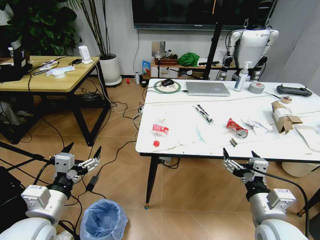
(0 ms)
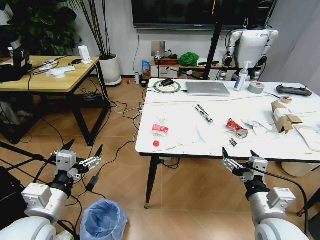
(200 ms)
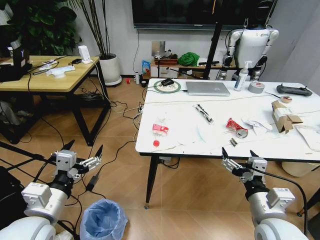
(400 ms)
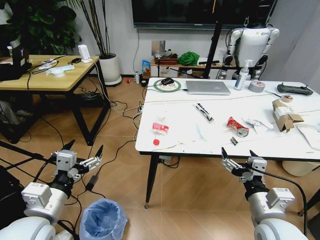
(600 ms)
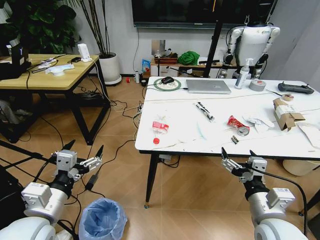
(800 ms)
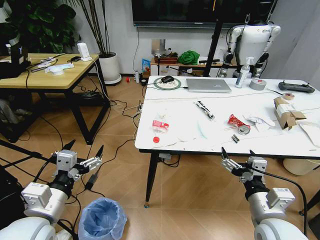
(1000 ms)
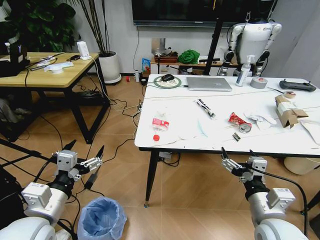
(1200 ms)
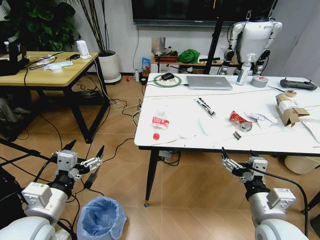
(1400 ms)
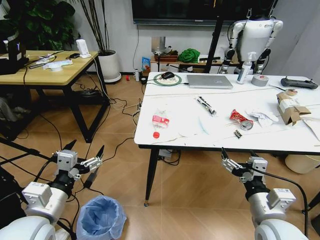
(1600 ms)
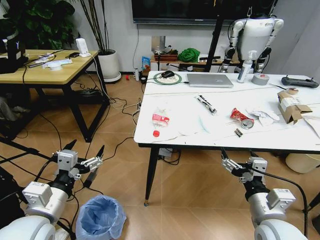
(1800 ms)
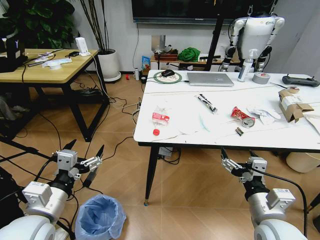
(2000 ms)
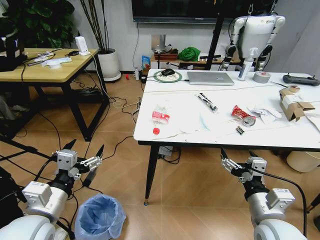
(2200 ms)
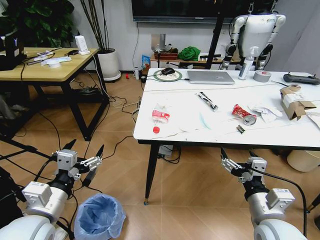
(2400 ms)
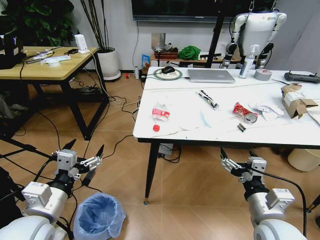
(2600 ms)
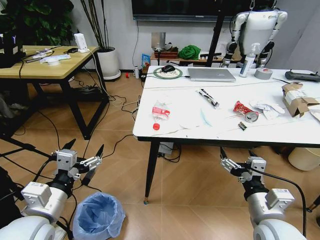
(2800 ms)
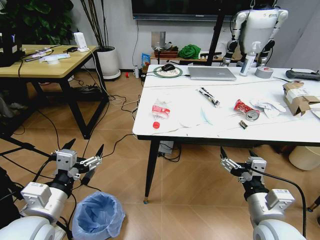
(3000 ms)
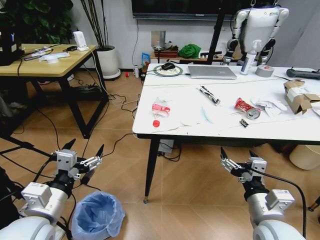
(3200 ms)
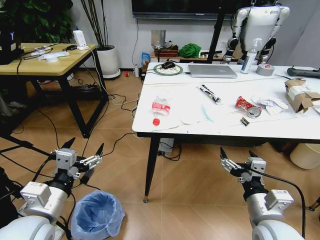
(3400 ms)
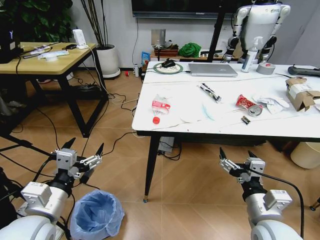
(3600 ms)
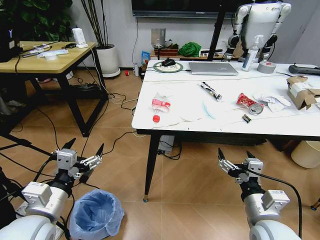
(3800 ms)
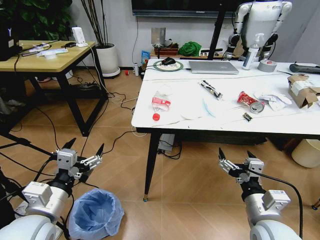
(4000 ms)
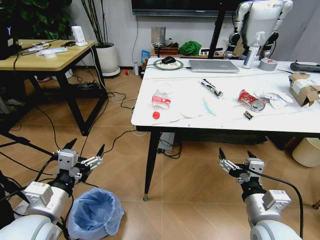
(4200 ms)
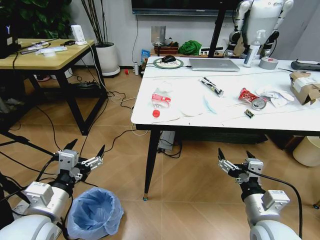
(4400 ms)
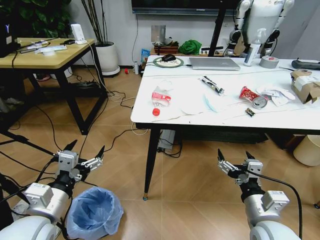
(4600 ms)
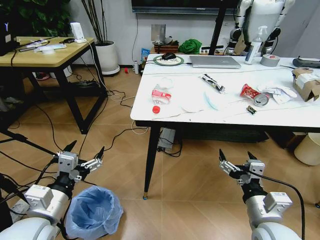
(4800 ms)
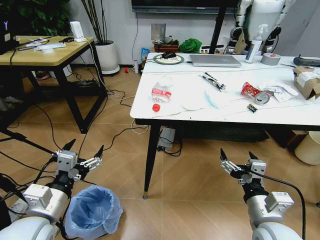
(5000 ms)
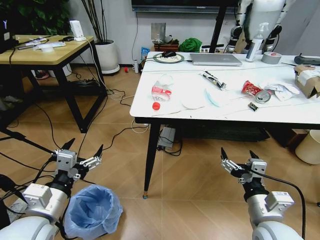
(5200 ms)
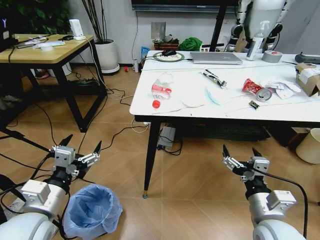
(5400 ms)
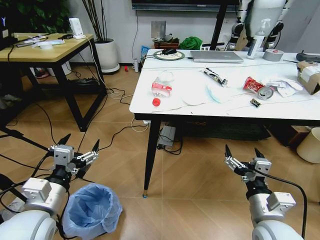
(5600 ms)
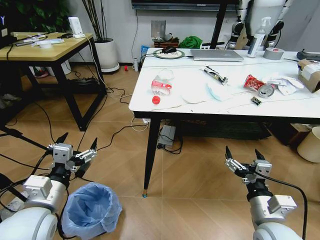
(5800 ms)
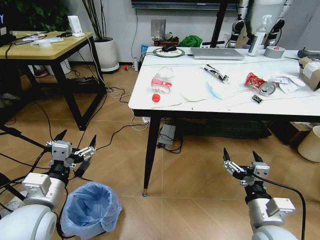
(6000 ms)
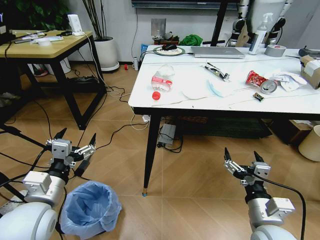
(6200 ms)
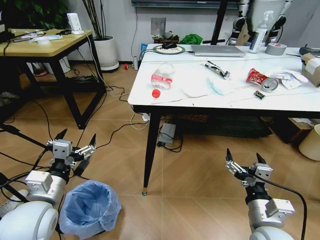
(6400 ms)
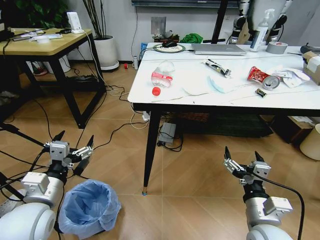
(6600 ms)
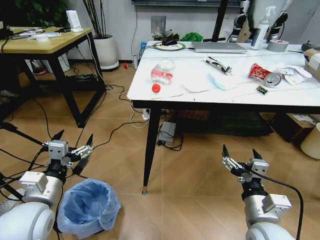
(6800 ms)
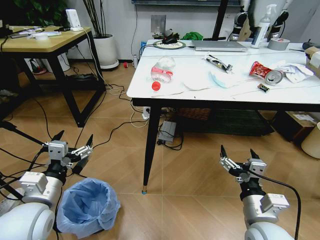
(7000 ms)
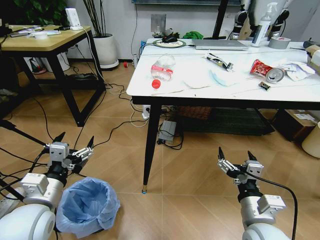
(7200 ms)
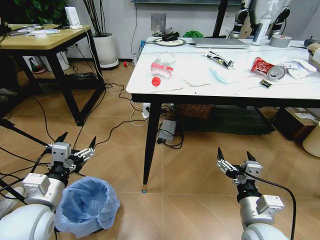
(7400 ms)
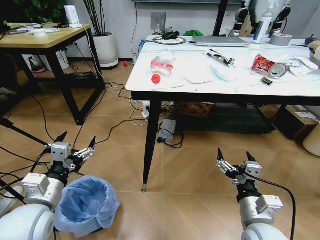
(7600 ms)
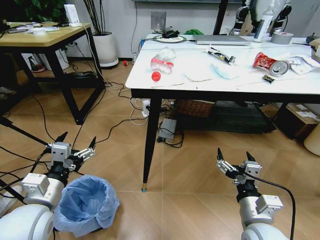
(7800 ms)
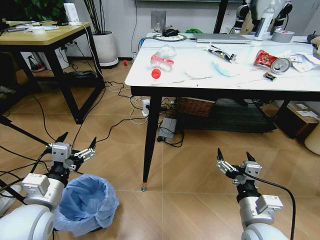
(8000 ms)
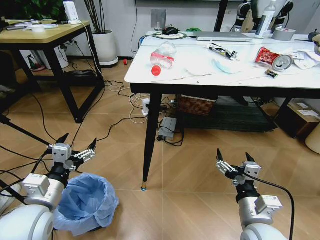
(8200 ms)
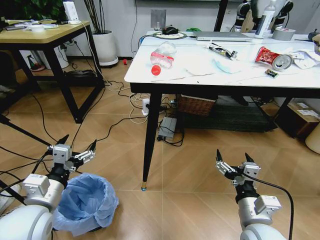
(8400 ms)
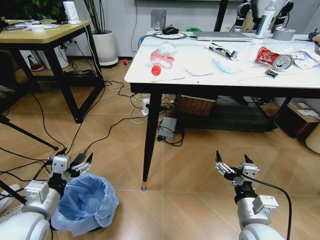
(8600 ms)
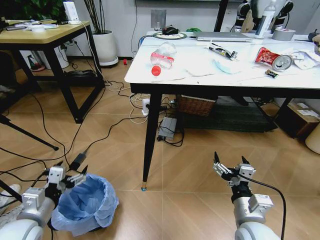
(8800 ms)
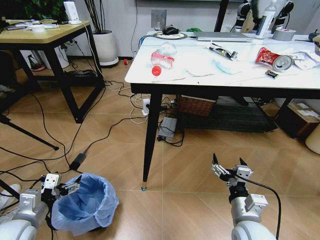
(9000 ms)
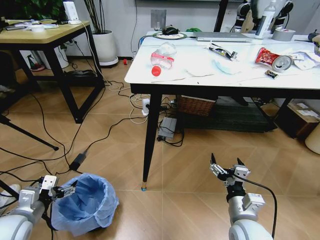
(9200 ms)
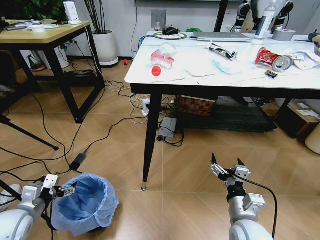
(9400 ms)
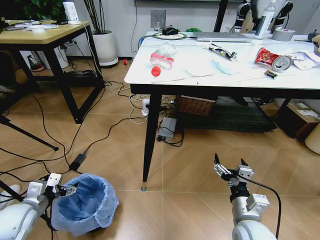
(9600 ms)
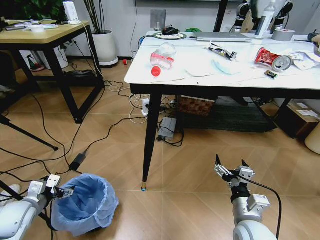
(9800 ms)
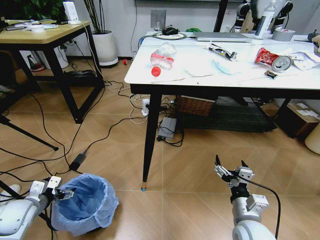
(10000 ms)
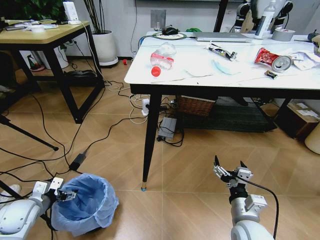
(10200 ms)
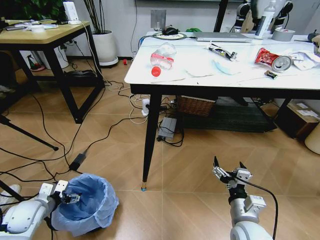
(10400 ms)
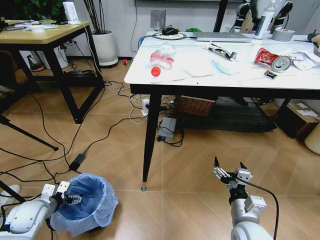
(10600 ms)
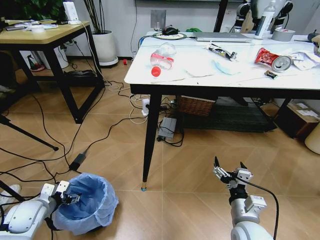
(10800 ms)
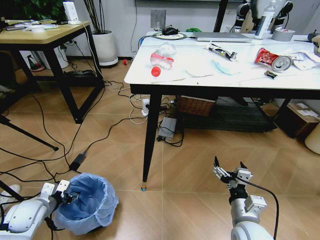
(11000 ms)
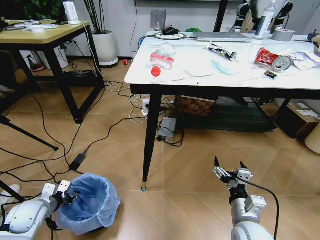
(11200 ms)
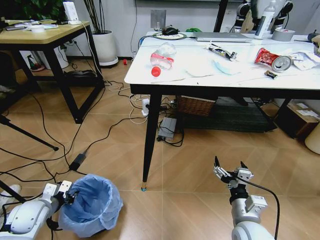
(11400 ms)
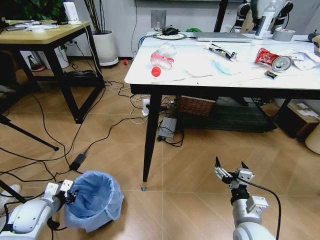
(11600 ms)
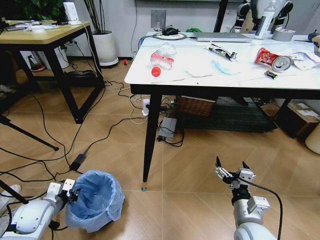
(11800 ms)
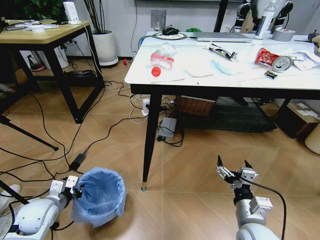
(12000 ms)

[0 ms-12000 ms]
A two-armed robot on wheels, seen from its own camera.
Task of the whole recording: Pick up the trash bin and place the trash from the table into it.
7600 ms to 9000 ms: The left gripper heads to the left and downward, covering roughly 10 cm.
9000 ms to 10400 ms: The left gripper moves downward, forward and to the left, approximately 15 cm.
10400 ms to 12000 ms: The left gripper moves to the right, about 5 cm, and closes.

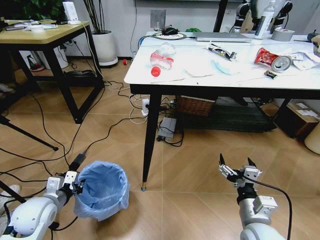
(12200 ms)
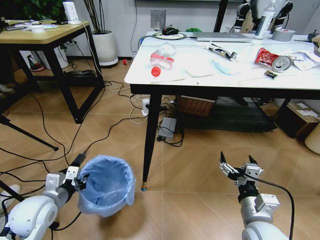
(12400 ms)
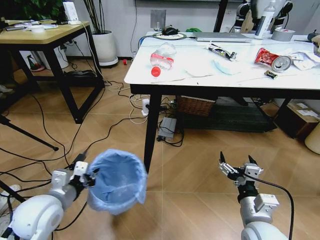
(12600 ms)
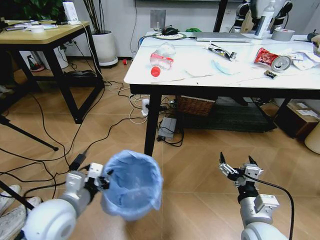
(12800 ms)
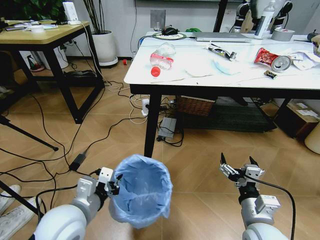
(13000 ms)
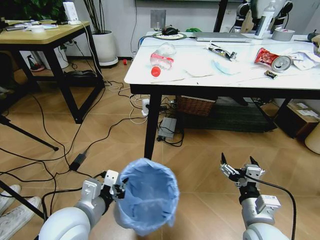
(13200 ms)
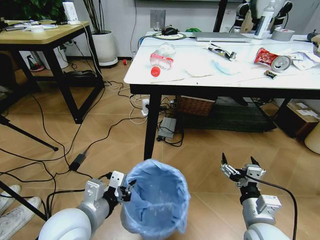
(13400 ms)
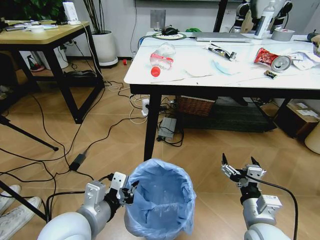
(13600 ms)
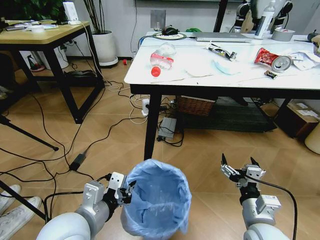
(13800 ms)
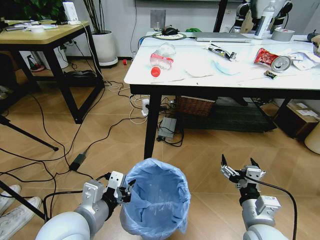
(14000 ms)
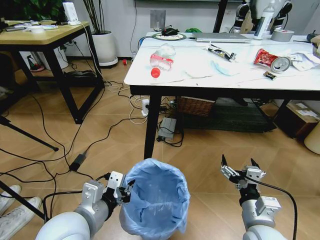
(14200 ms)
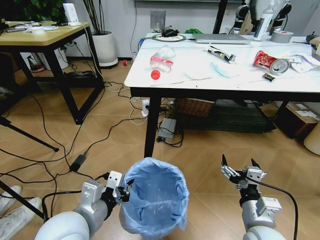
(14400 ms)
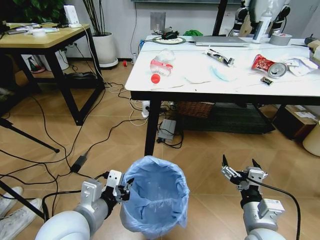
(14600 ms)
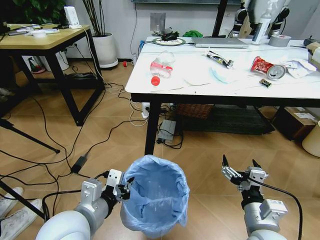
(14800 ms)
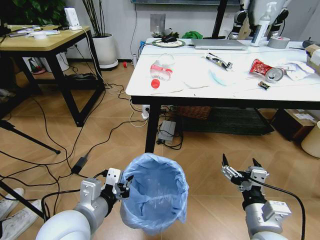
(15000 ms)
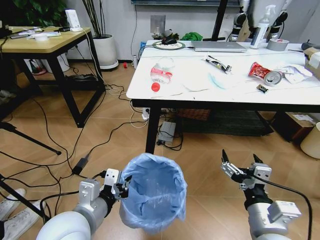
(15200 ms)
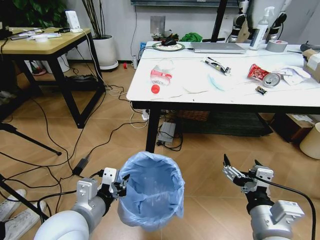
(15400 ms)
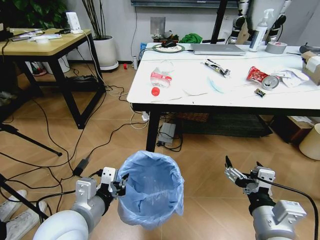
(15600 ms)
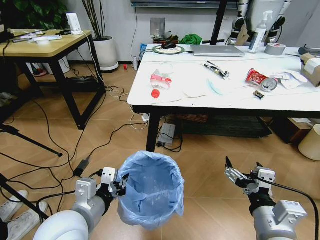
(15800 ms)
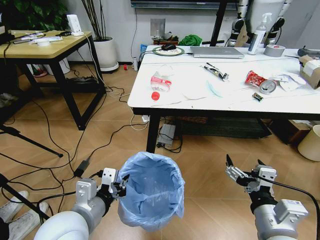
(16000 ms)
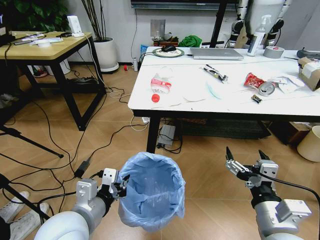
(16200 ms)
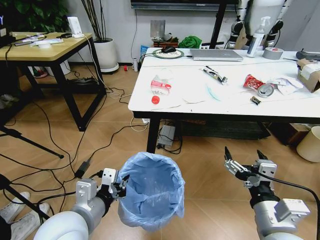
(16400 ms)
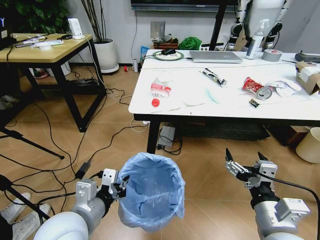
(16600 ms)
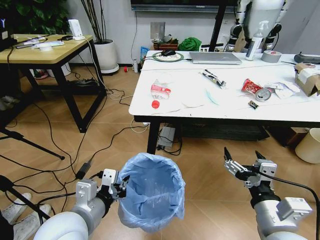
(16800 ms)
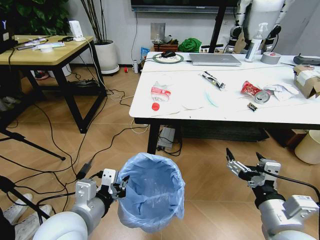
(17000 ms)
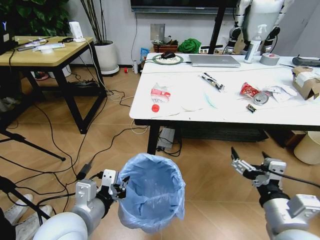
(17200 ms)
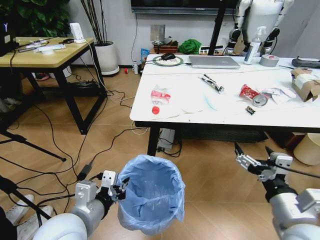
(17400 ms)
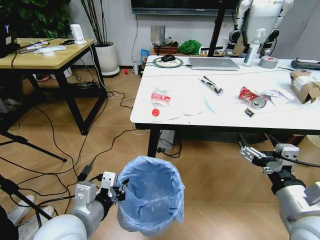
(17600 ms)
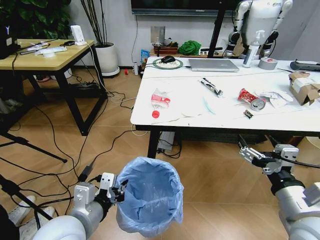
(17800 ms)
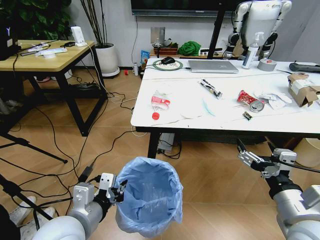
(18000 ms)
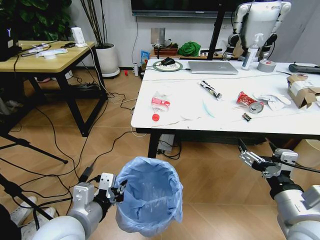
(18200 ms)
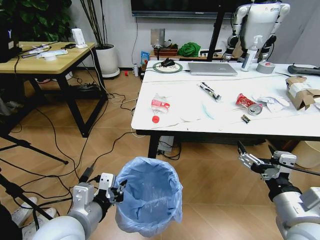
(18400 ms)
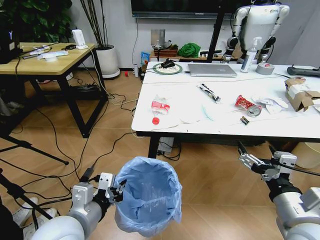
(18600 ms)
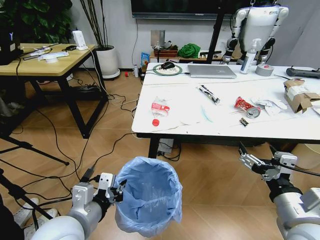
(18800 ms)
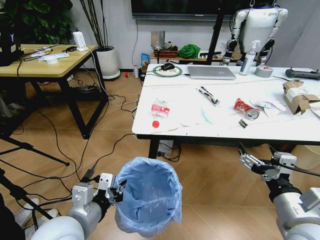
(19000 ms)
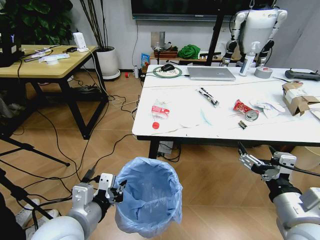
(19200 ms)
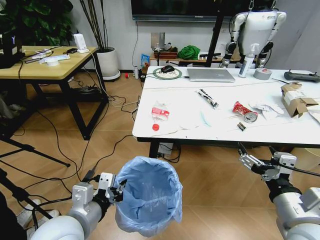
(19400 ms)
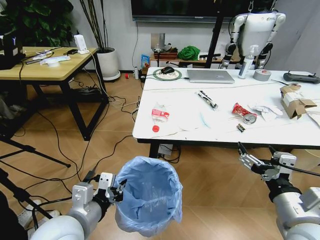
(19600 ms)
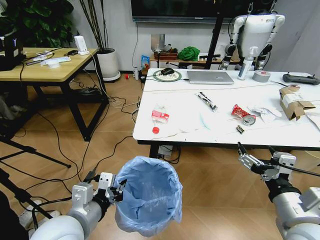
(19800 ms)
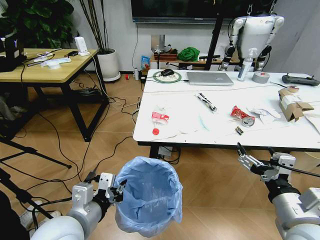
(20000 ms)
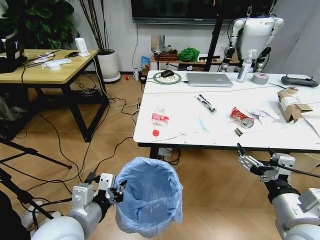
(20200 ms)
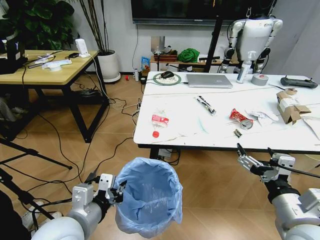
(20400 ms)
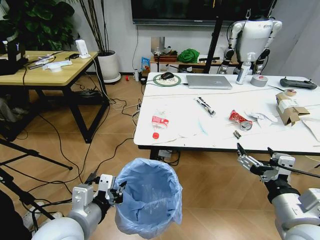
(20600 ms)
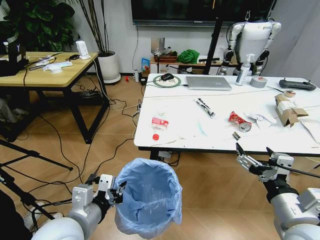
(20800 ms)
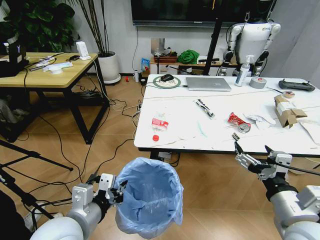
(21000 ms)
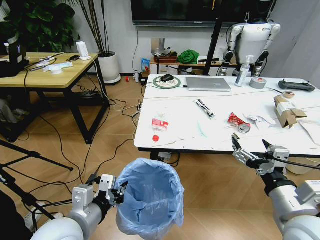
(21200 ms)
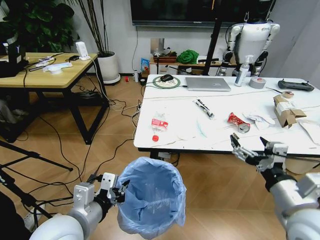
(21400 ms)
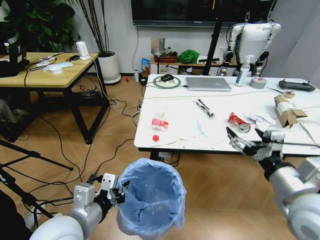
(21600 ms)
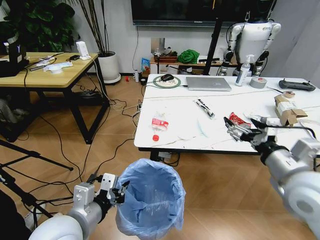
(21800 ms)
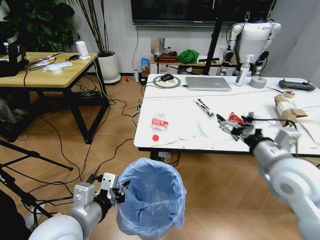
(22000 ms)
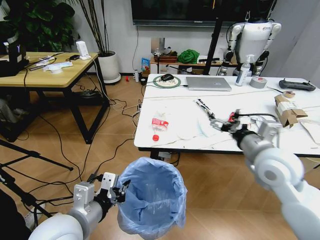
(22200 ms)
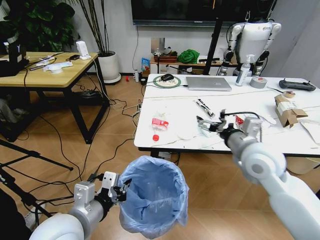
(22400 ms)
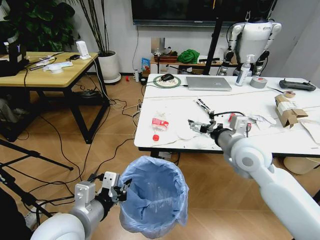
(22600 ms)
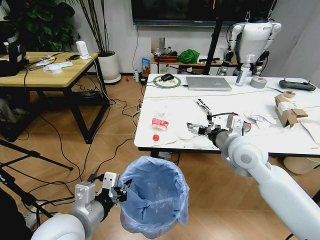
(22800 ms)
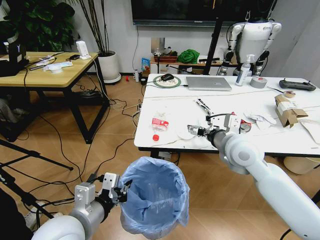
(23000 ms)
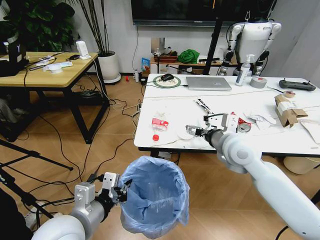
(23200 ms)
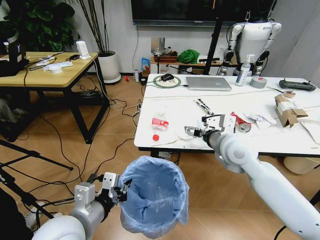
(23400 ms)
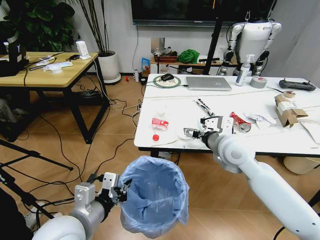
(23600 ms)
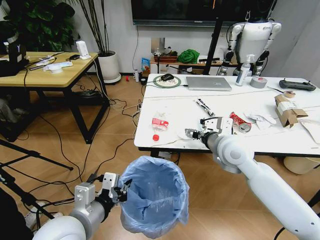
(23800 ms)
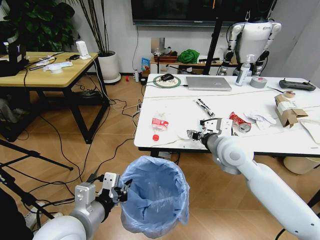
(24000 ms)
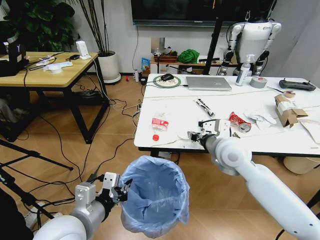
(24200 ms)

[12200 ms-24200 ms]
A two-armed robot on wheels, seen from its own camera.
Task of the whole recording: Pick up the trash bin and place the trash from the table into it.
12200 ms to 13800 ms: The left gripper moves to the right, upward and backward, about 25 cm.
13800 ms to 15200 ms: The right gripper shifts by some 5 cm.
16600 ms to 18200 ms: The right gripper shifts roughly 5 cm to the right.
21200 ms to 22600 ms: The right gripper goes some 20 cm forward.
22600 ms to 24200 ms: The right gripper closes up.
